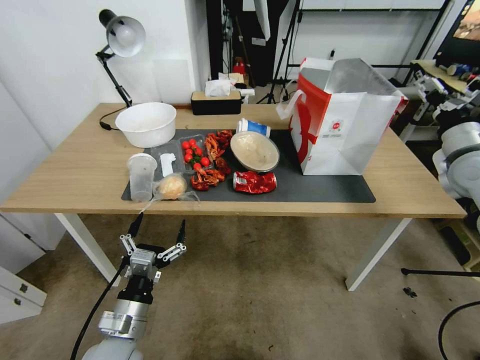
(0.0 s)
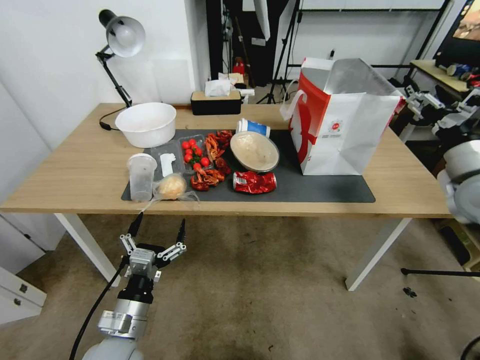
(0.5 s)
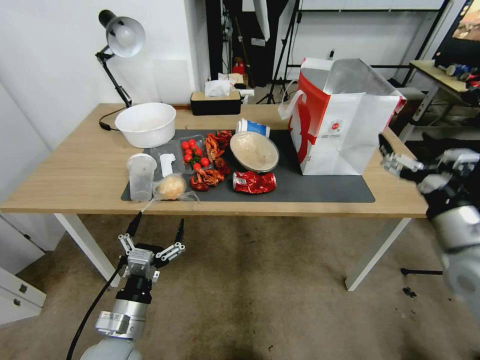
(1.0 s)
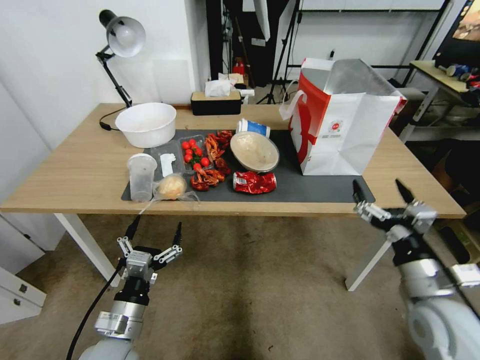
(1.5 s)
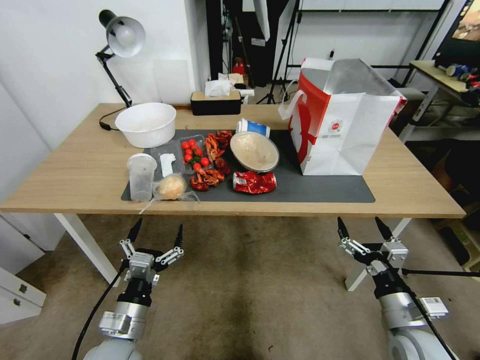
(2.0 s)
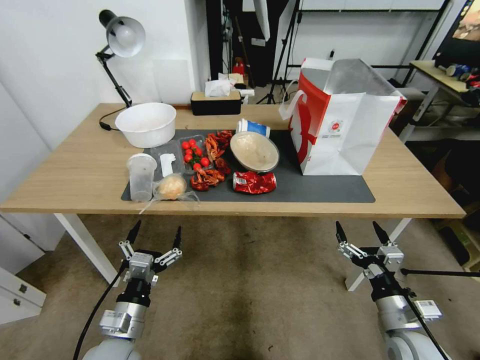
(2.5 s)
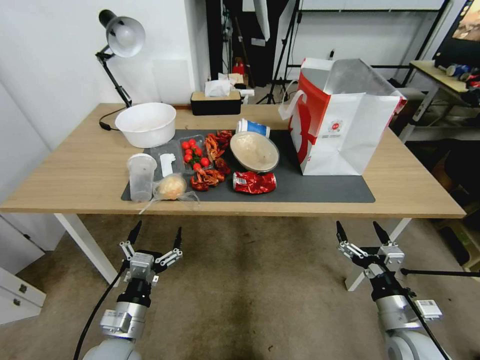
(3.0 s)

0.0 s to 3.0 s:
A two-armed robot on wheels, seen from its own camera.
Task of the whole recording: Pick up the food delivery bag from the floor and place it on the table.
0.0 to 1.5 s: The right gripper travels backward, downward and to the left by some 30 cm.
1.5 to 3.0 s: The right gripper shifts some 10 cm downward.

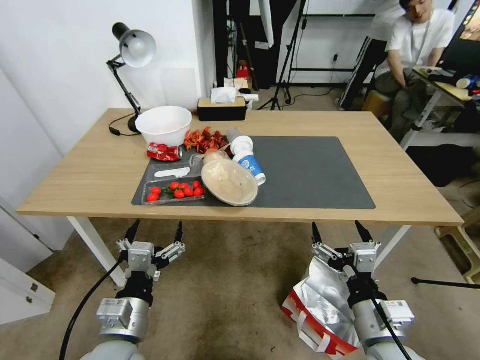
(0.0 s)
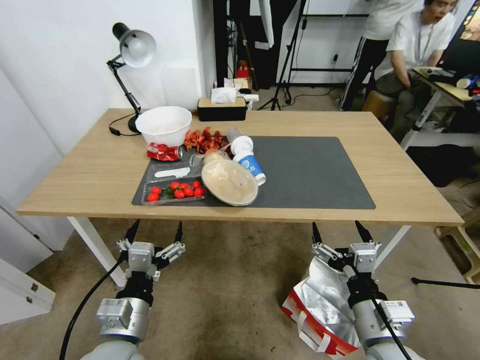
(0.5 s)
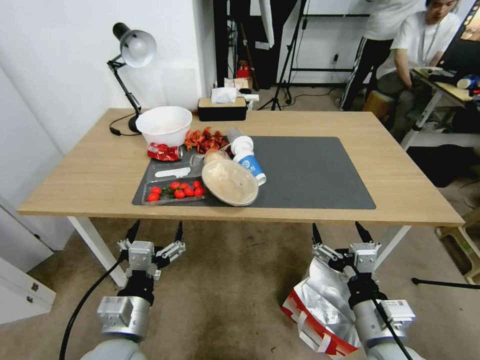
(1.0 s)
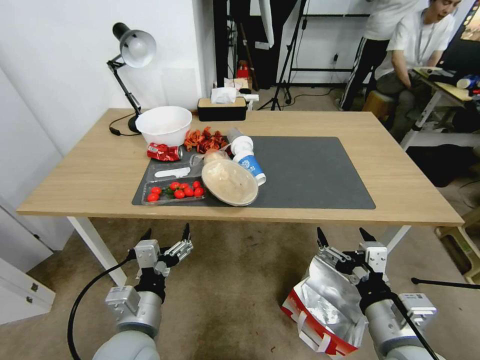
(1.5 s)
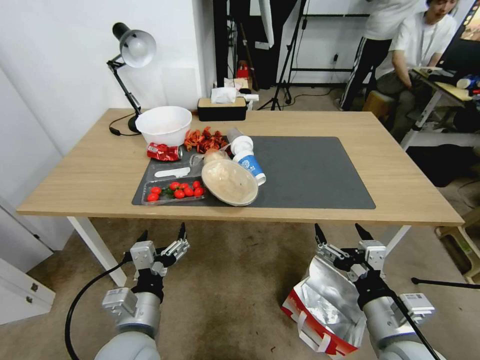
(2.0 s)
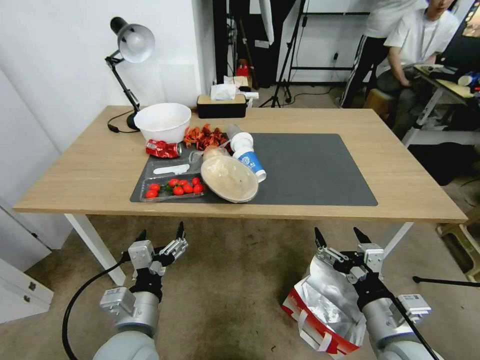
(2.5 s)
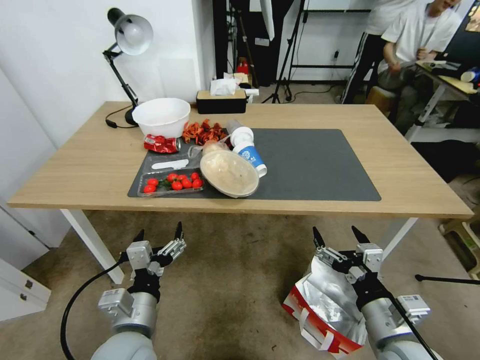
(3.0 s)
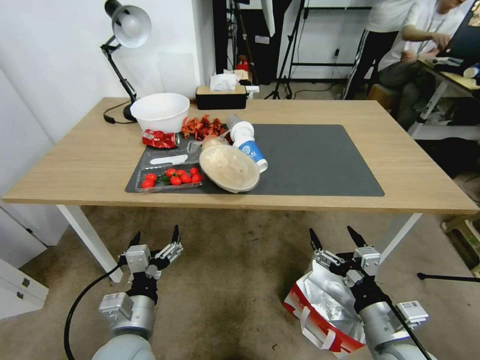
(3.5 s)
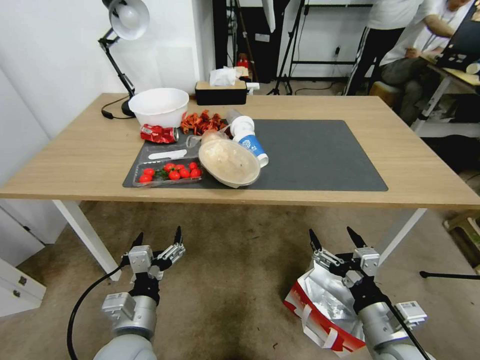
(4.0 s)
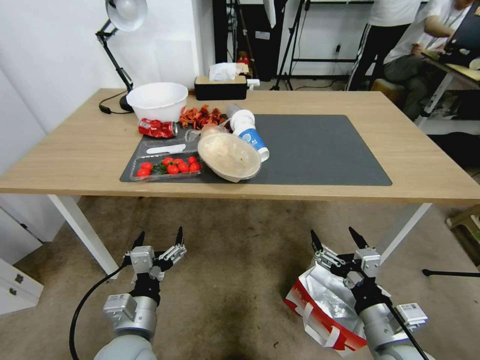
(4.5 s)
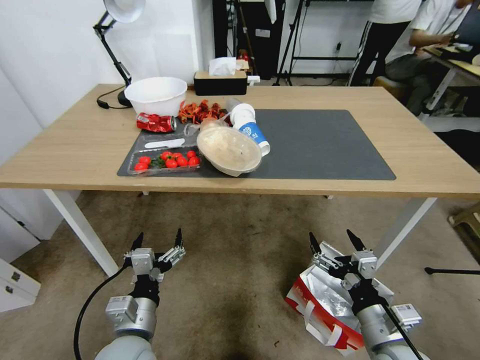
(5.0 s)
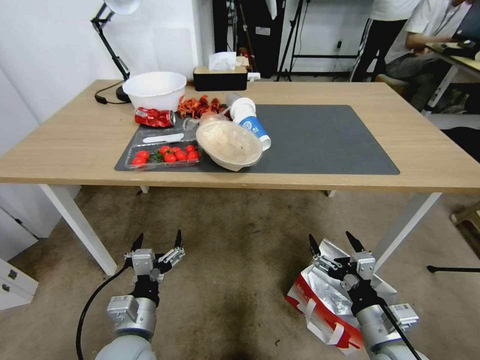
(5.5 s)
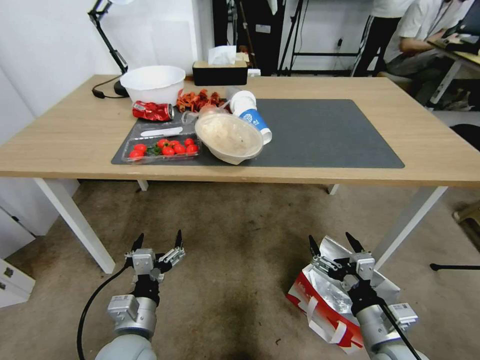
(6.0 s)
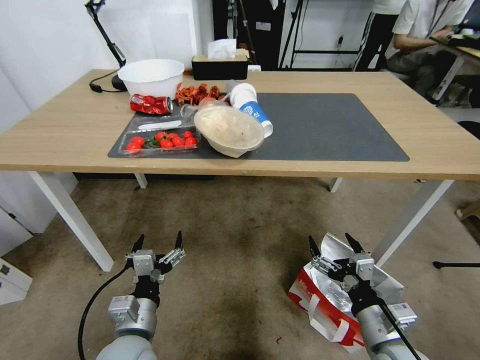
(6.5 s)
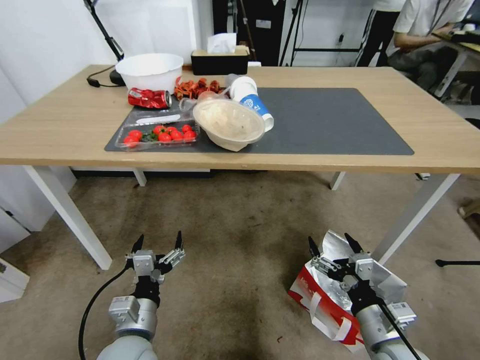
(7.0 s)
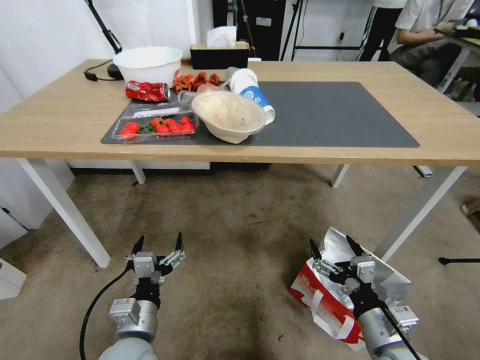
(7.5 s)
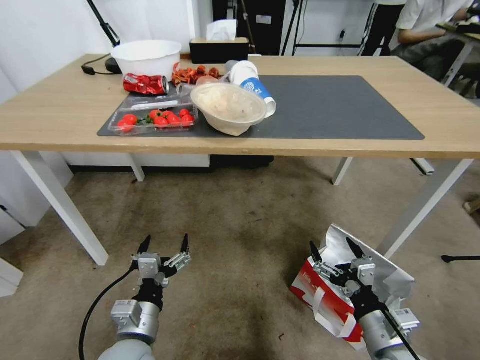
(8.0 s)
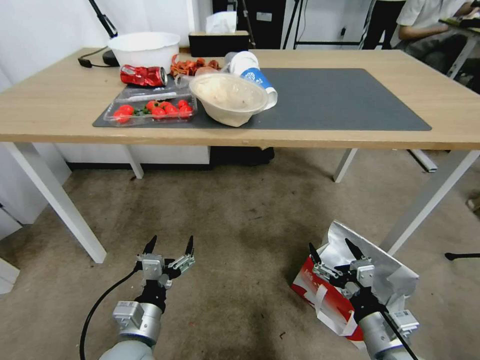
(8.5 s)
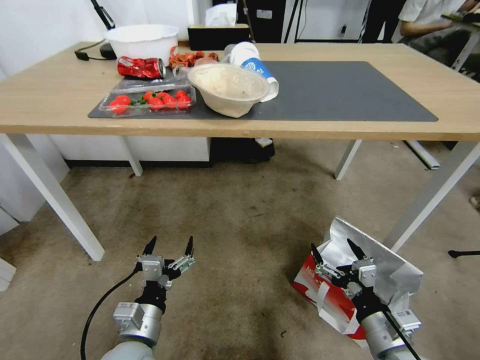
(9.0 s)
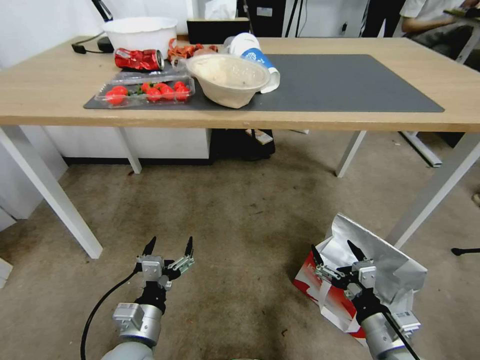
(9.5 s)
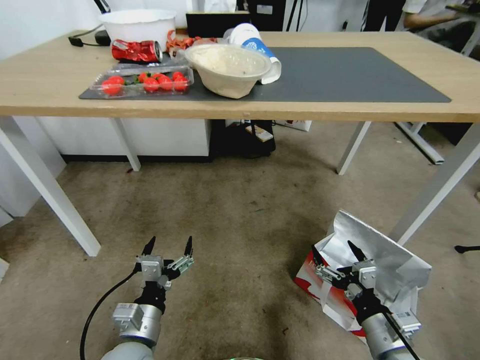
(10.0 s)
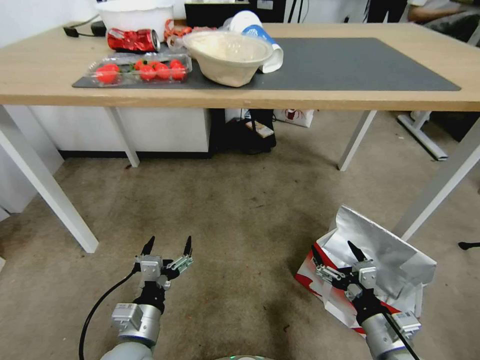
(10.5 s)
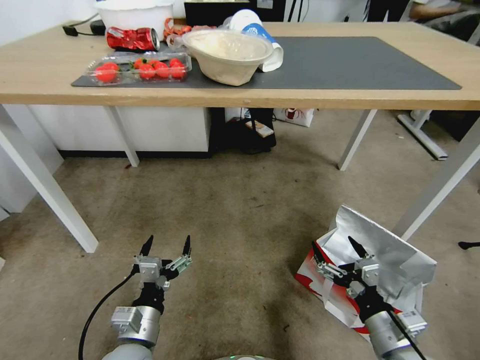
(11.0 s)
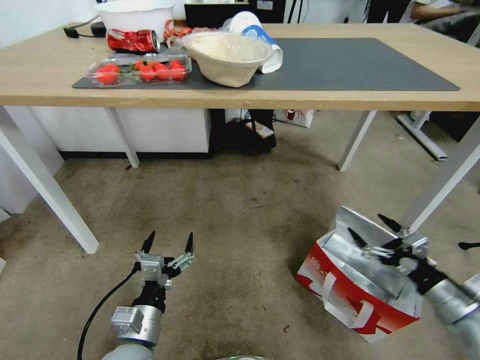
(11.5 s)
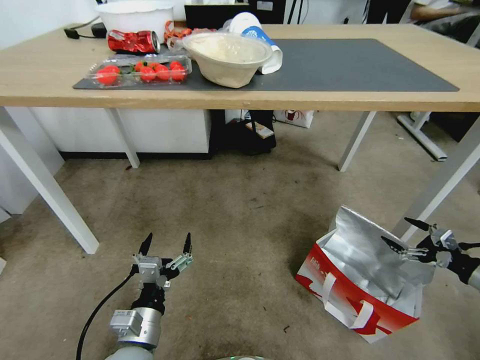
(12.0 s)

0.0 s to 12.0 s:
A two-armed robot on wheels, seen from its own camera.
Task of the whole recording: Pick up the food delivery bag from the floor and place it on the table.
10.0 to 12.0 s: The right gripper shifts about 30 cm to the right.

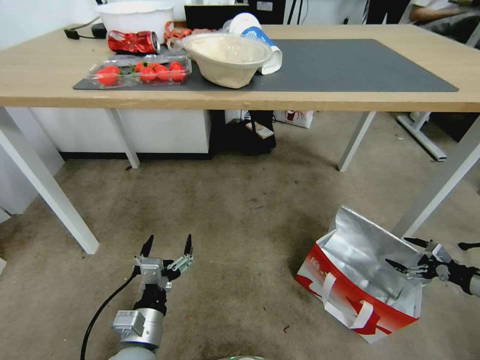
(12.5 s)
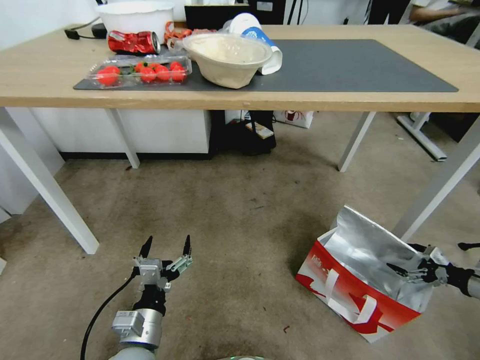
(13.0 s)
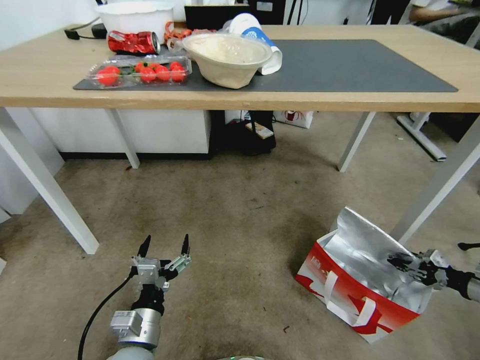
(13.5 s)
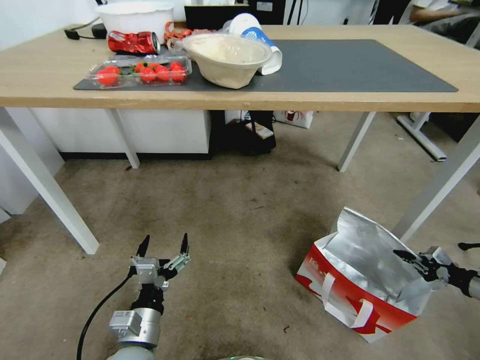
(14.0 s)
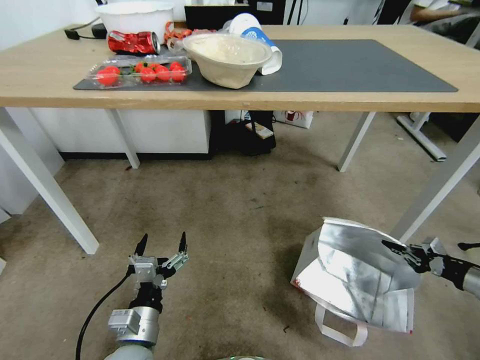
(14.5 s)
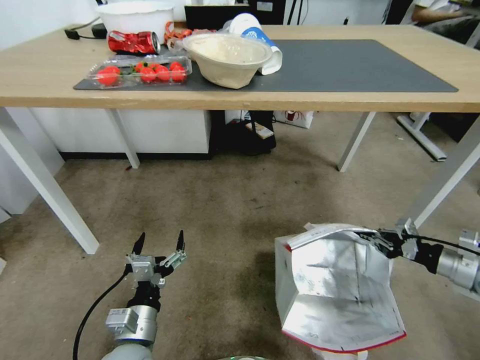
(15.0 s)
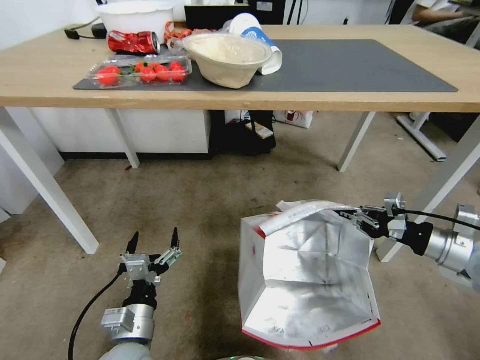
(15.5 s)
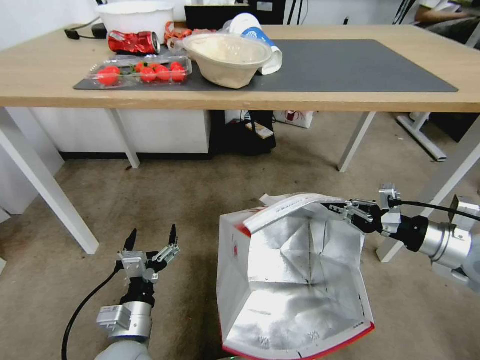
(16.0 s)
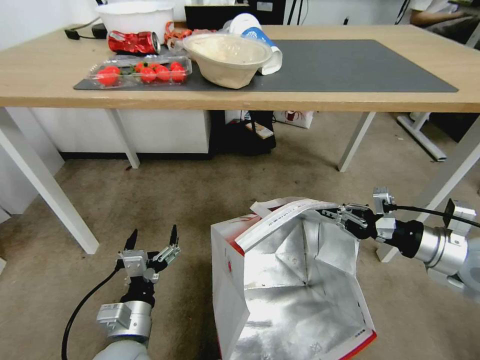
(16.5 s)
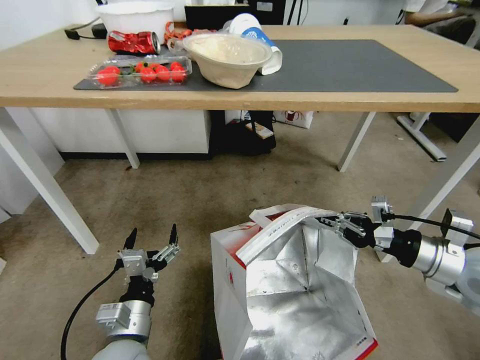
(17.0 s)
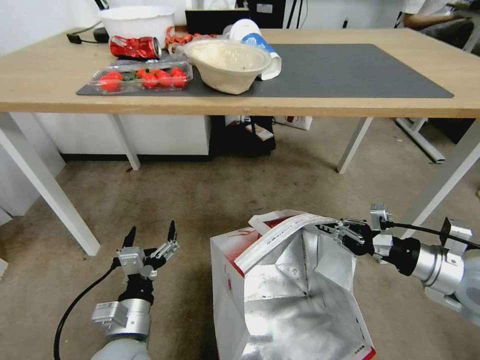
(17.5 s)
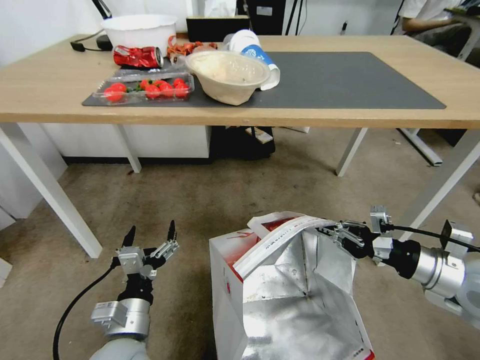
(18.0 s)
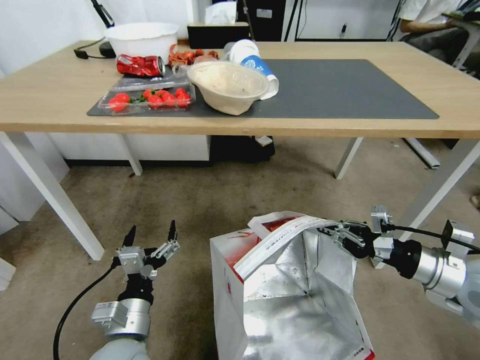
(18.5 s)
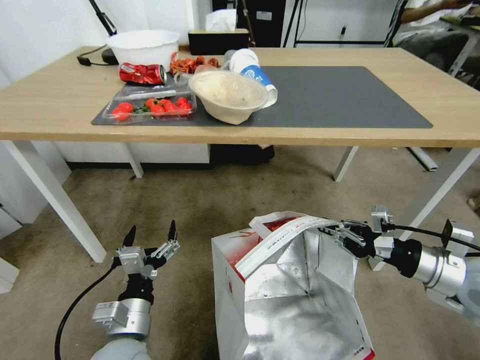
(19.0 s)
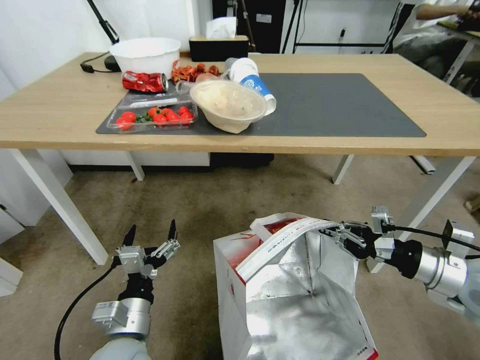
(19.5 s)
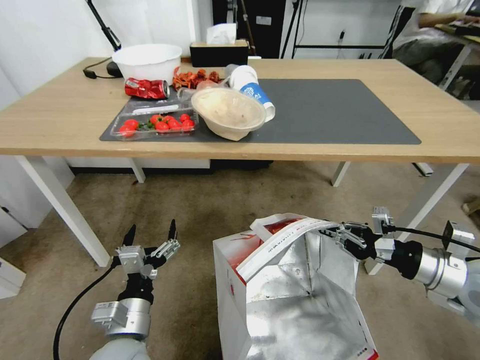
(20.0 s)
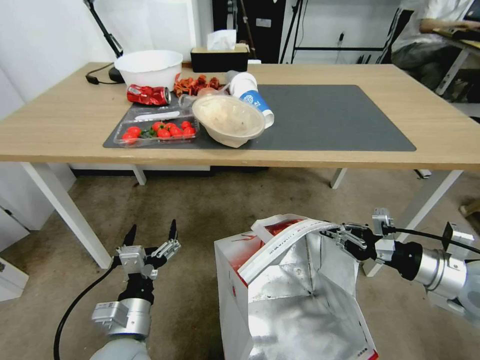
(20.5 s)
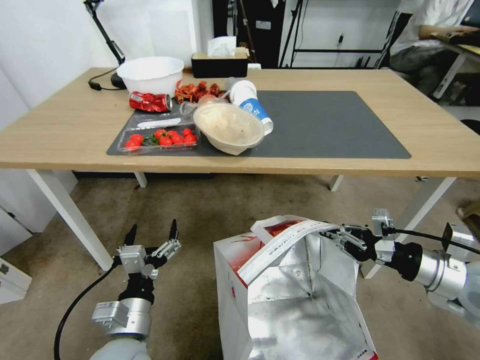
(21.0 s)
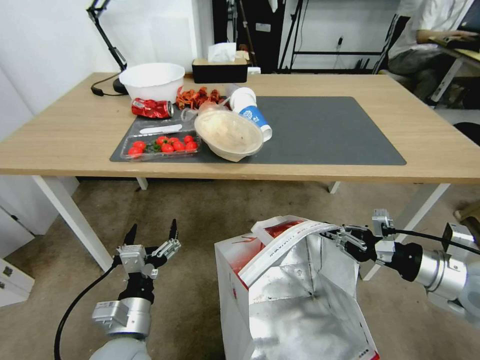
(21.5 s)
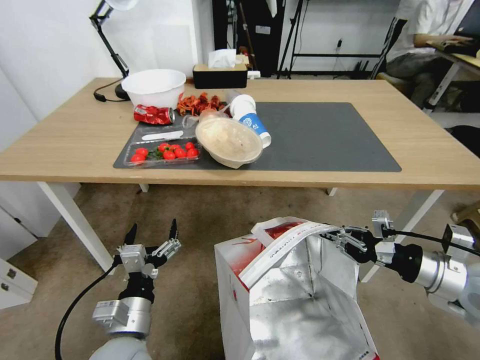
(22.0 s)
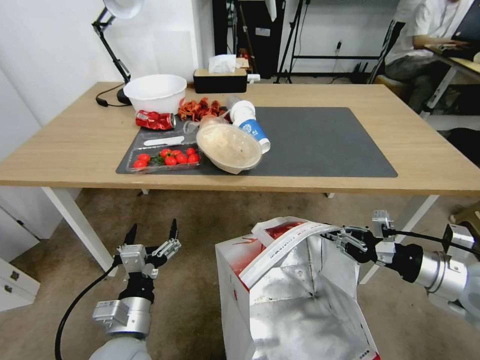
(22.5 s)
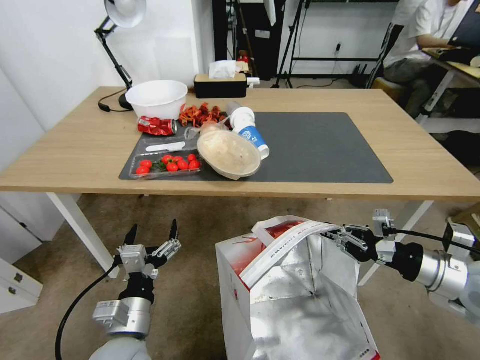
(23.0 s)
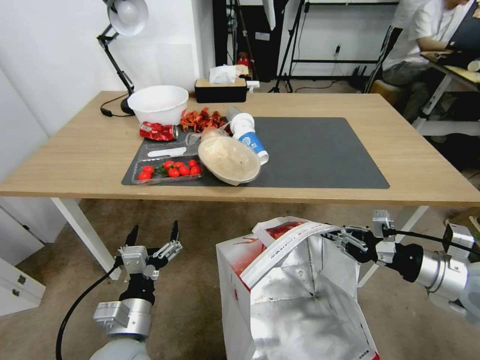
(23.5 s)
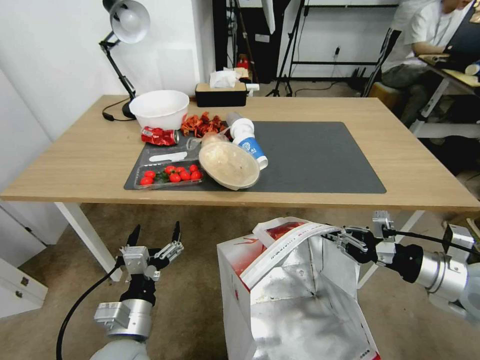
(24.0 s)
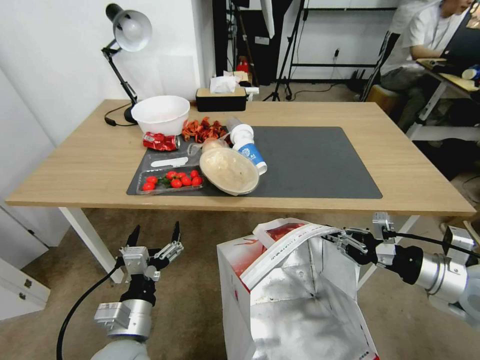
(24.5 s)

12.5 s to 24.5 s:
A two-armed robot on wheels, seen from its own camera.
Task of the whole recording: Pick up the food delivery bag from the floor and place it on the table.
12.5 to 14.5 s: The right gripper closes its fingers.
14.5 to 16.5 s: The right gripper goes about 25 cm to the left and upward.
